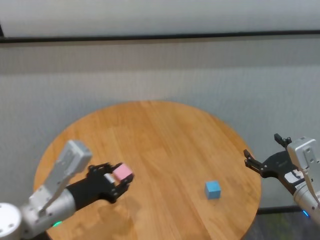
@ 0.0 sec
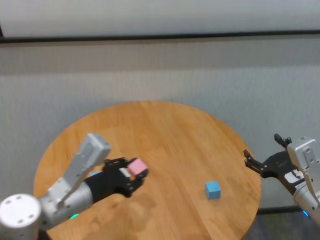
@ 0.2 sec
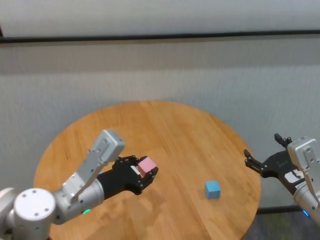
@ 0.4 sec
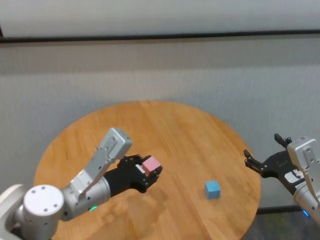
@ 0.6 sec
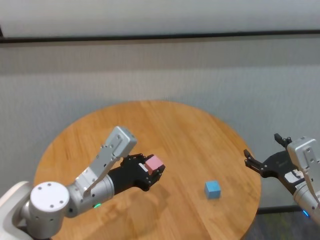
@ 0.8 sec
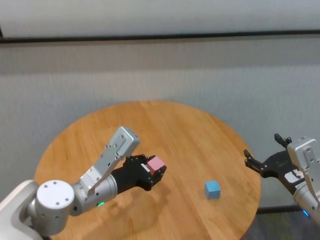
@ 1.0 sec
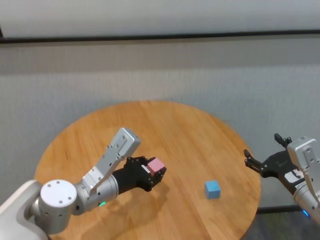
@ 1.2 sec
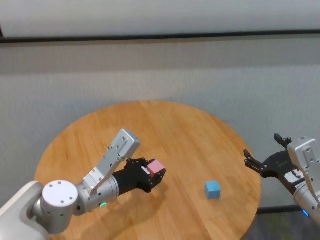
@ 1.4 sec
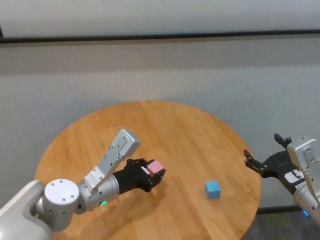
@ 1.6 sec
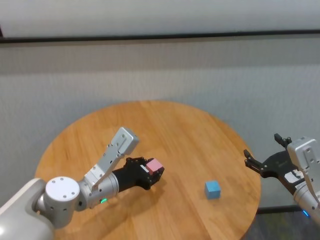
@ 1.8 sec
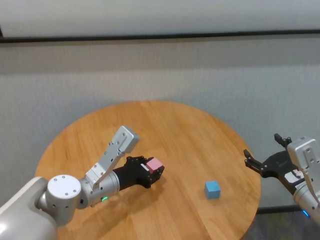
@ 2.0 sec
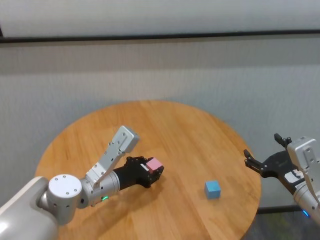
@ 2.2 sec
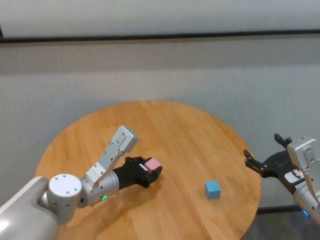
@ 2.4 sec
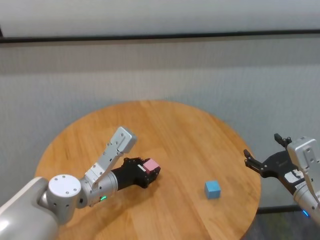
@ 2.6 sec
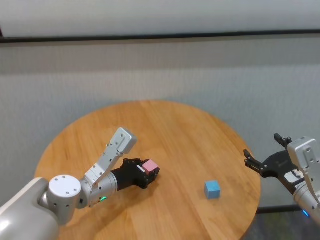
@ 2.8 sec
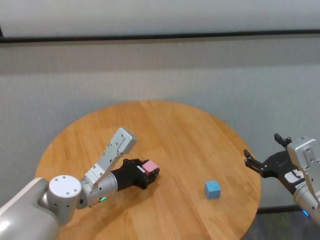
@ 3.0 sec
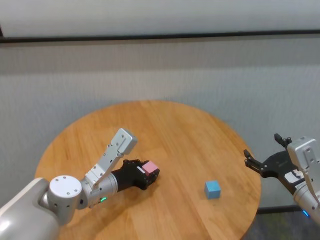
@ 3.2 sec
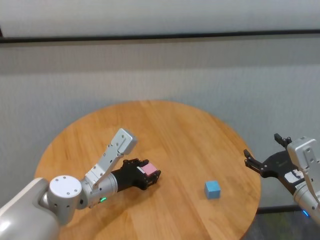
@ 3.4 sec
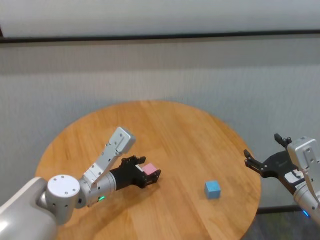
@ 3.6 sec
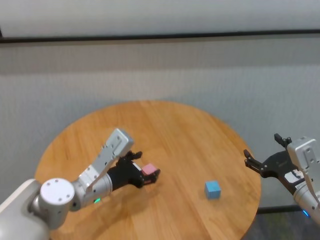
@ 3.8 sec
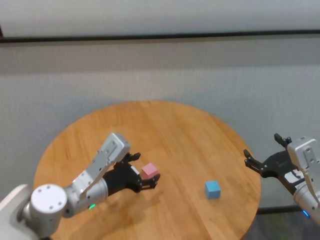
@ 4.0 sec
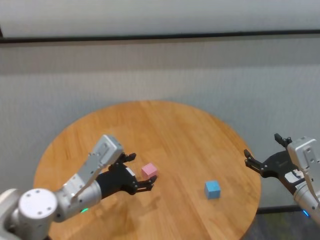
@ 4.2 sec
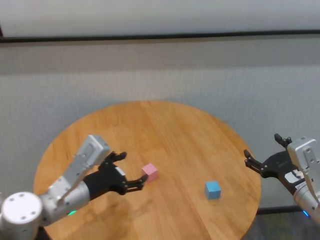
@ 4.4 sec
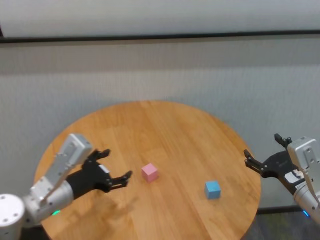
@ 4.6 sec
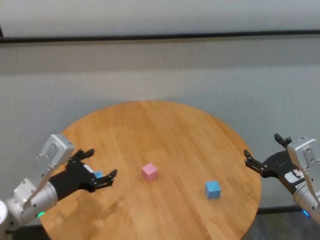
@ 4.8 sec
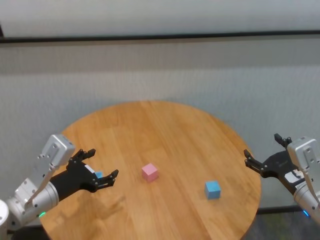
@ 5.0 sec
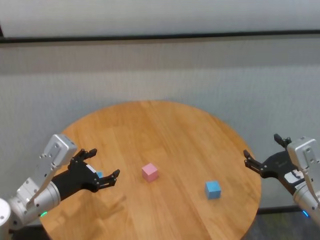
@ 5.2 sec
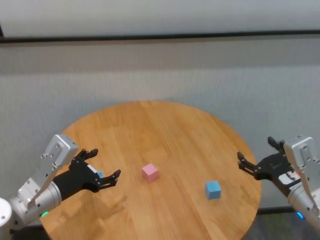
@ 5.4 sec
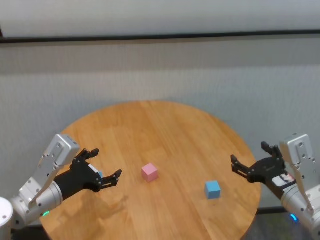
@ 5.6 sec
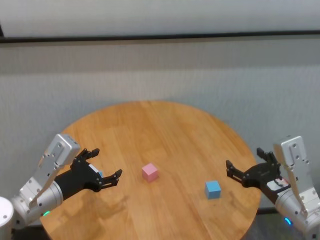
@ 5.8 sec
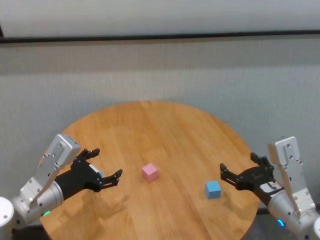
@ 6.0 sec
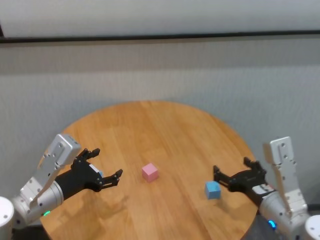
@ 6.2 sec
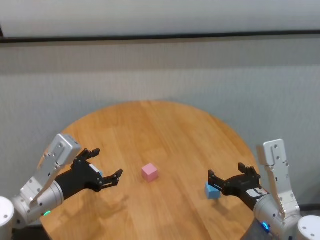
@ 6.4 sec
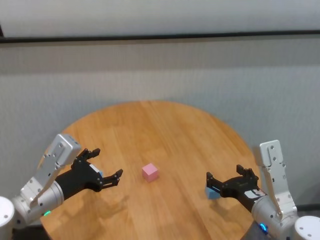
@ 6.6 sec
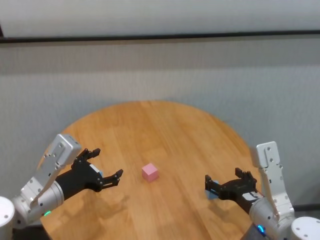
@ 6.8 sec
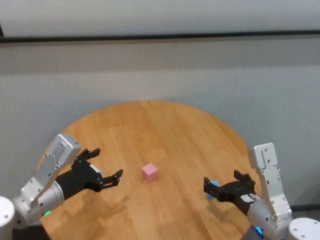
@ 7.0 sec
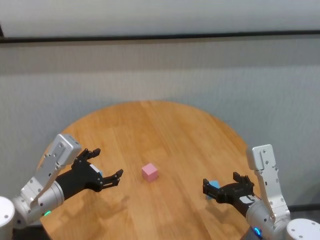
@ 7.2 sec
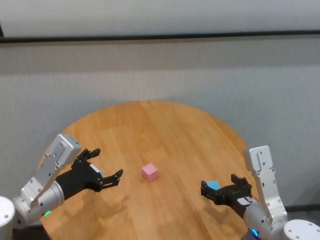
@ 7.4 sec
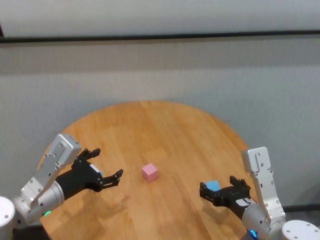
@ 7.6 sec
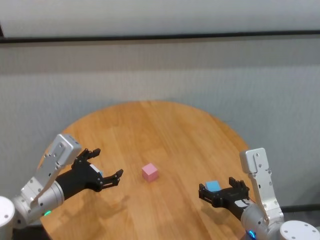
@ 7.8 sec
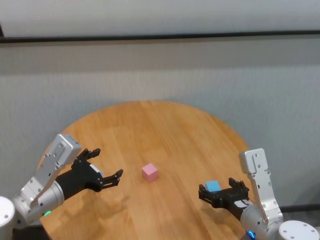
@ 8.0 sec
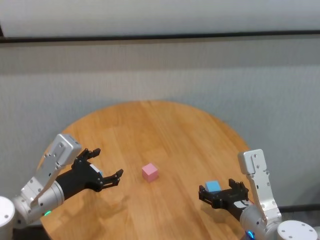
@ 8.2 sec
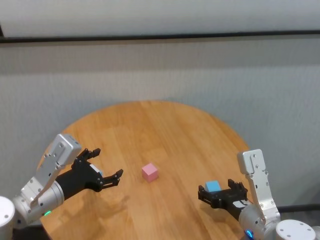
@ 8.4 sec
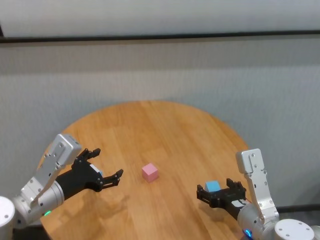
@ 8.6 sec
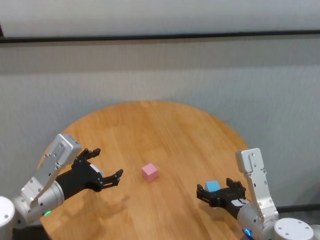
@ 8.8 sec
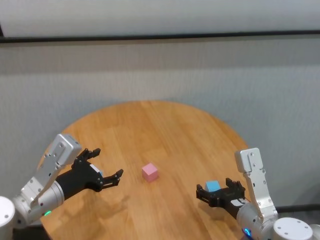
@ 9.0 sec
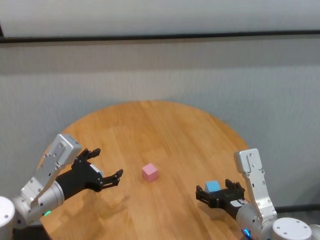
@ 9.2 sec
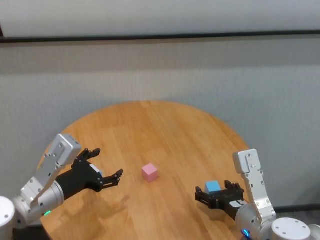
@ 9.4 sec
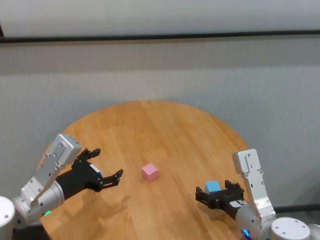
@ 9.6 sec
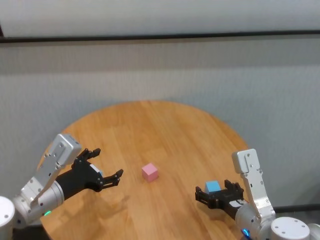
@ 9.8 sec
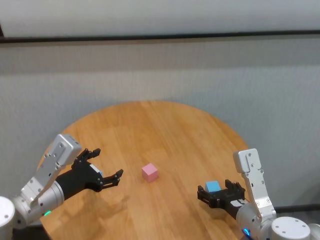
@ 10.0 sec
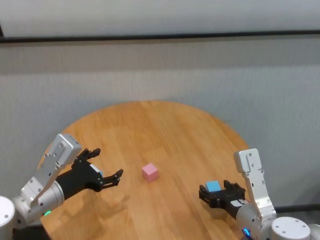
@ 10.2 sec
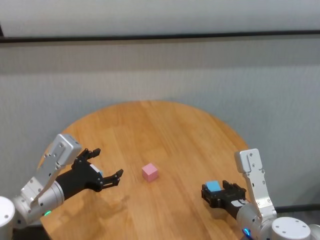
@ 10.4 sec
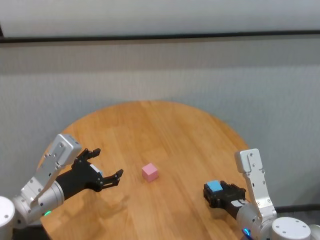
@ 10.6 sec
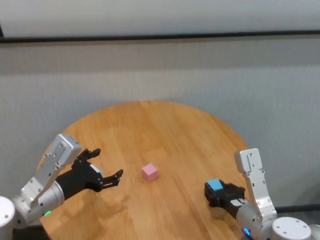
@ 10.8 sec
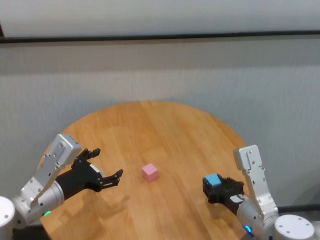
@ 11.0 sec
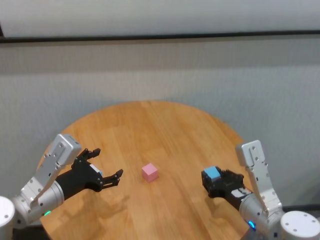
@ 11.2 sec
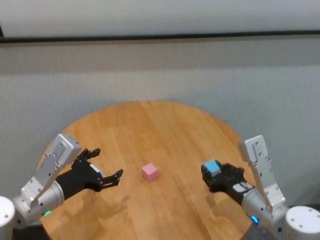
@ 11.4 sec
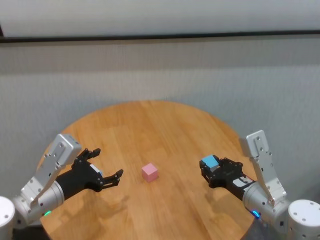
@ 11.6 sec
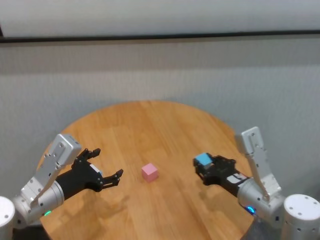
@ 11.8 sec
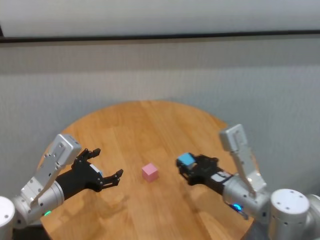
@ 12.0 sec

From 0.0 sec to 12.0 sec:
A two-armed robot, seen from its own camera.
Task of the whole recording: stack building blocks on the table.
Step, from 0.0 sec to 3.4 sec: Place the pink building block in the center of table with left gripper.
Step, from 3.8 sec to 10.6 sec: Grasp the blue building block with right gripper.

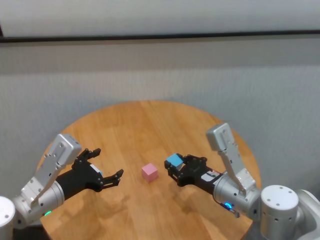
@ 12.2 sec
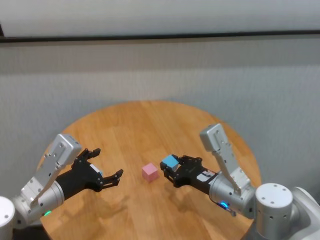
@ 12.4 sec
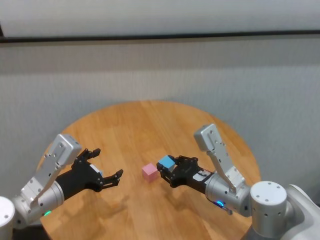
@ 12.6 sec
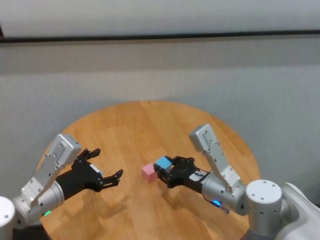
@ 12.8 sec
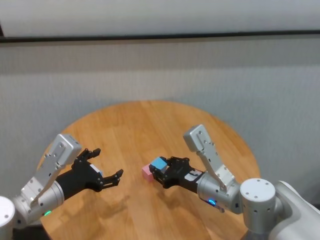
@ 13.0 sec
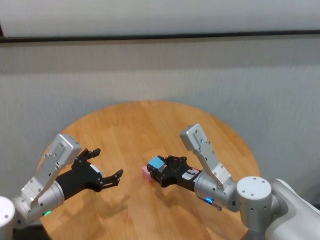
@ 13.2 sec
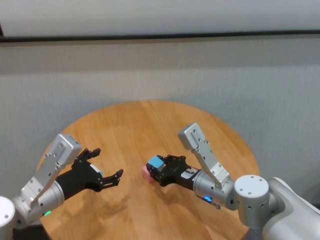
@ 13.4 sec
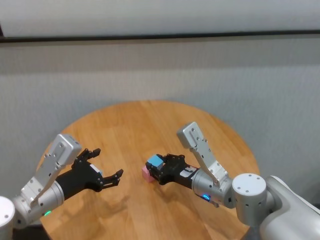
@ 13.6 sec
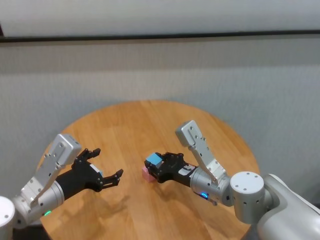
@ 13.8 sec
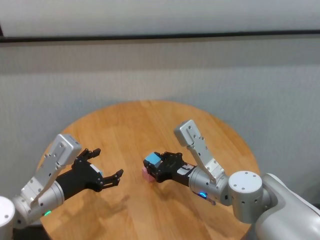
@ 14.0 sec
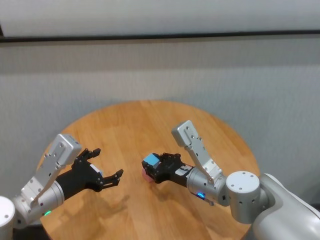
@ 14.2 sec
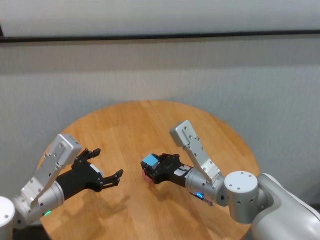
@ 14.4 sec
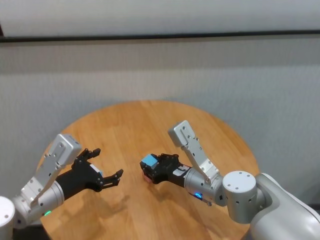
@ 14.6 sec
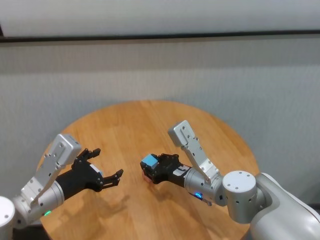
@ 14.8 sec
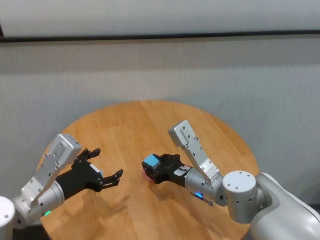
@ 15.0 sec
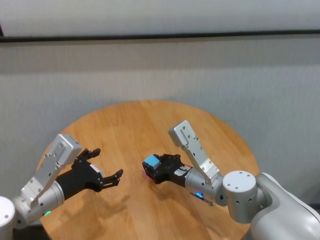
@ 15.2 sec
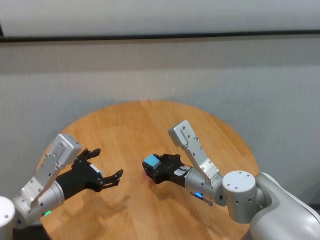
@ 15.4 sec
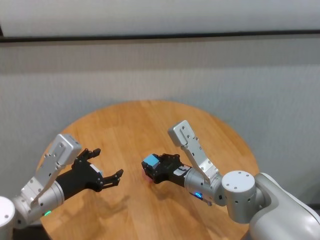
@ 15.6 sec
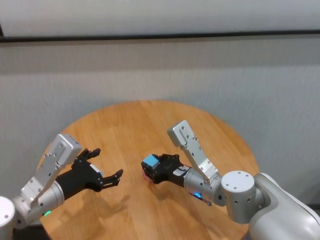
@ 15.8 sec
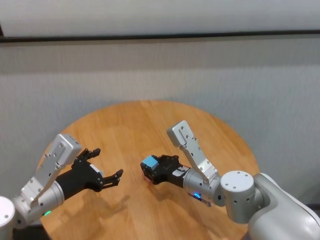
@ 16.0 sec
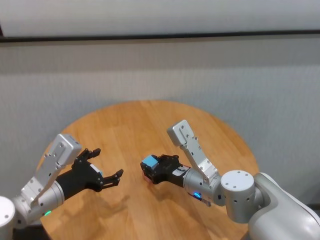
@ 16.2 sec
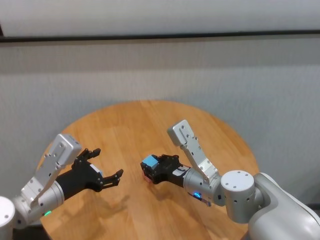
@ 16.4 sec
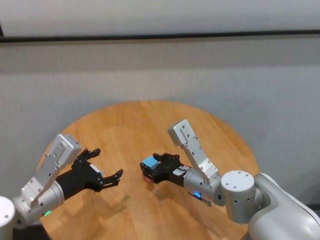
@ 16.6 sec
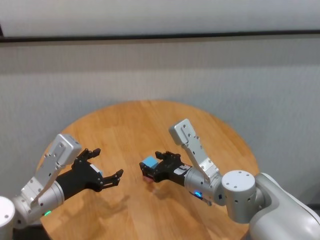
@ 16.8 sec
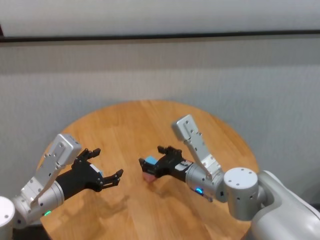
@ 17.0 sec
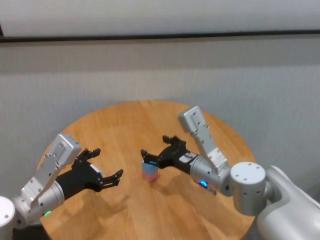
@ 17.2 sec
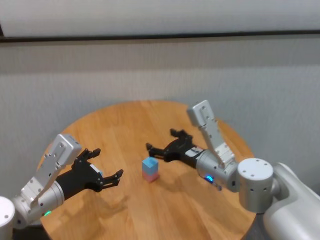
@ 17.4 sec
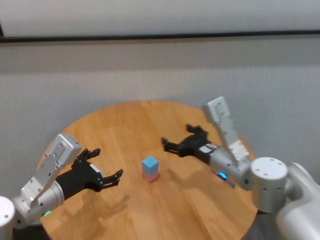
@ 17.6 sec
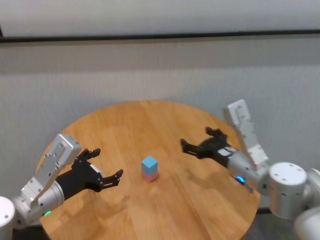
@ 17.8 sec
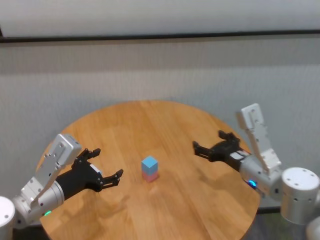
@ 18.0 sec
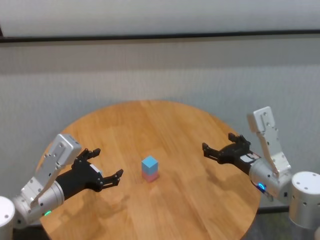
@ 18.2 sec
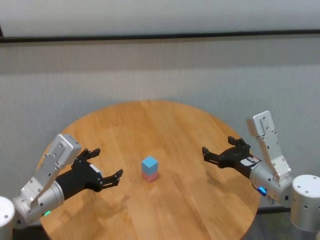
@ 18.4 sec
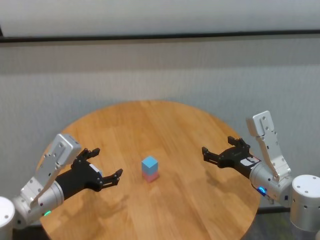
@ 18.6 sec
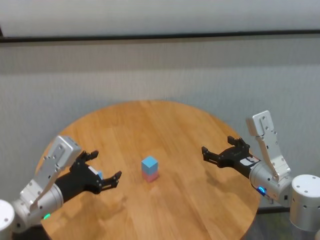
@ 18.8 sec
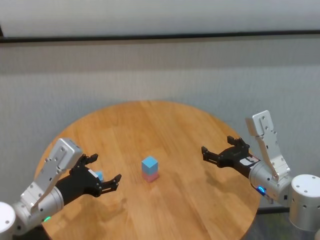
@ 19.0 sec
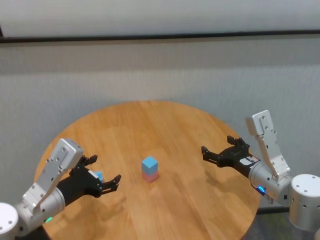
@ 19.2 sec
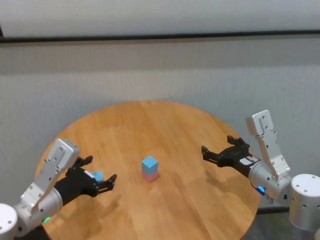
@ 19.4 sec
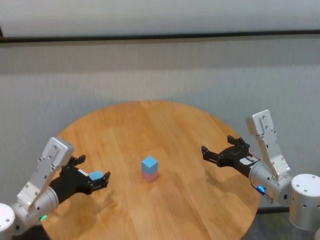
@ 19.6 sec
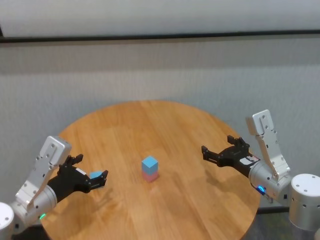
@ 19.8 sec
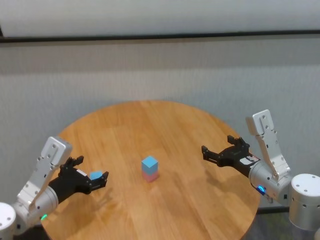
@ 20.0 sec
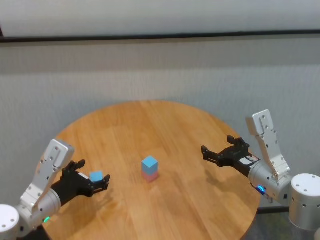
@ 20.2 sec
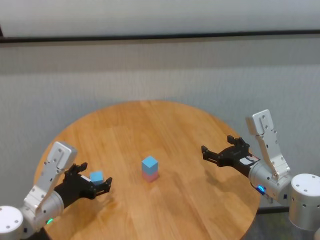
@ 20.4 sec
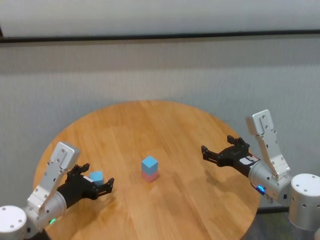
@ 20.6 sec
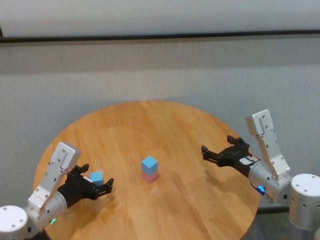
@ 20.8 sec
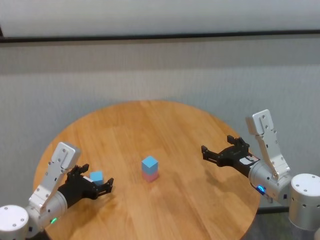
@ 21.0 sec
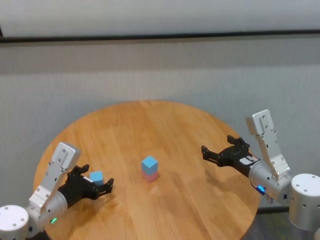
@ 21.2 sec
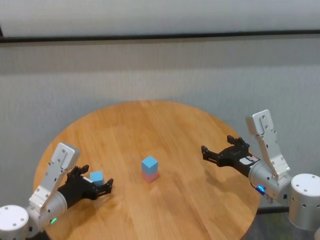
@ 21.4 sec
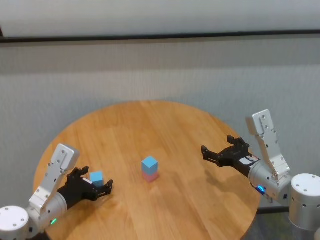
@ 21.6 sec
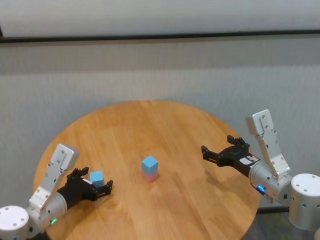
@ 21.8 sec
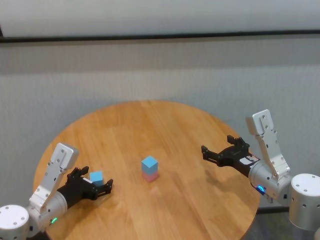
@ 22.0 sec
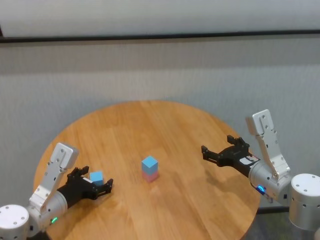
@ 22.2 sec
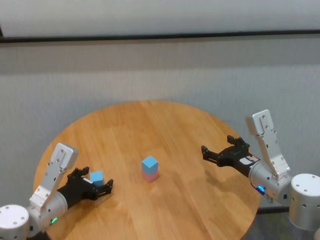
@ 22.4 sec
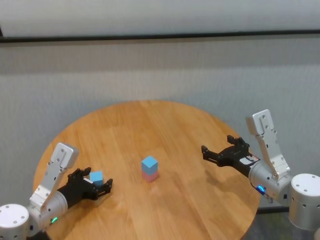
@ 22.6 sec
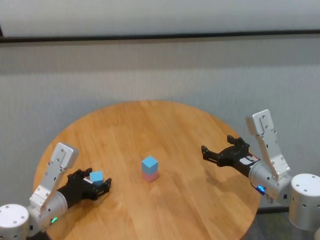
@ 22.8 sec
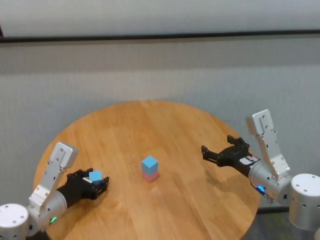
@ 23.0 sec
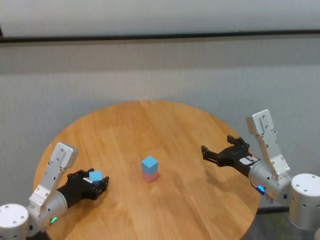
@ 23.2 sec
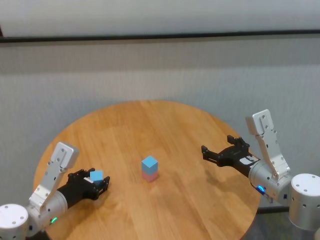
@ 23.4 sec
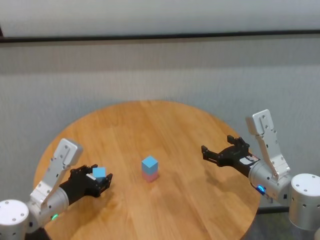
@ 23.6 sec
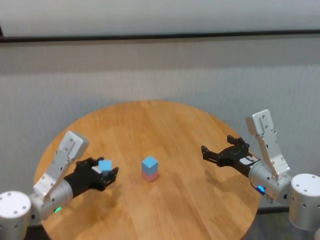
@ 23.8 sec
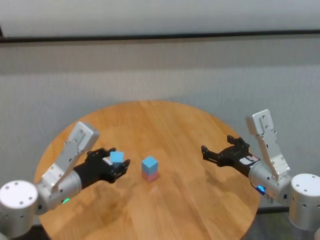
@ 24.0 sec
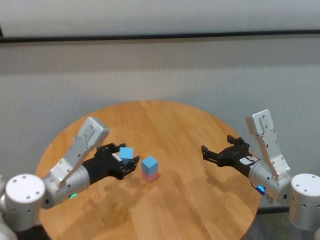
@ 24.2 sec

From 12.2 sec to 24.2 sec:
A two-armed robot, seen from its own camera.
Task of the whole recording: stack building blocks on the table.
Step, from 12.2 sec to 16.8 sec: Place the blue building block on the pink building blocks with right gripper.
Step, from 17.0 sec to 23.0 sec: Grasp the blue building block with left gripper.
